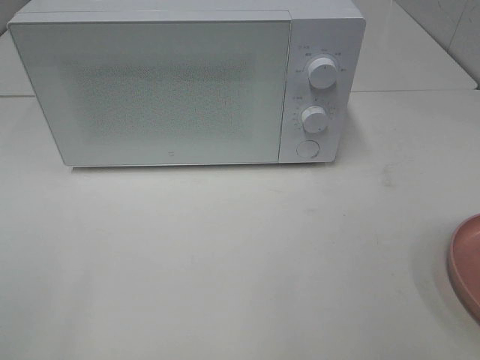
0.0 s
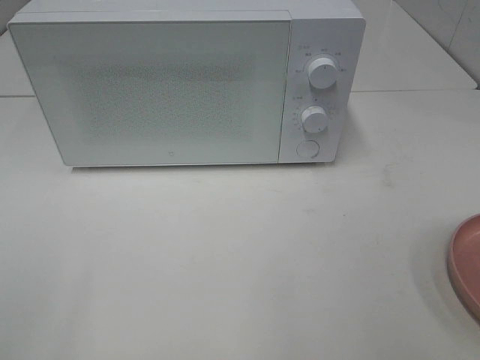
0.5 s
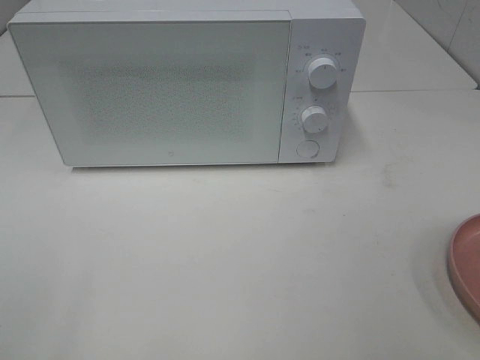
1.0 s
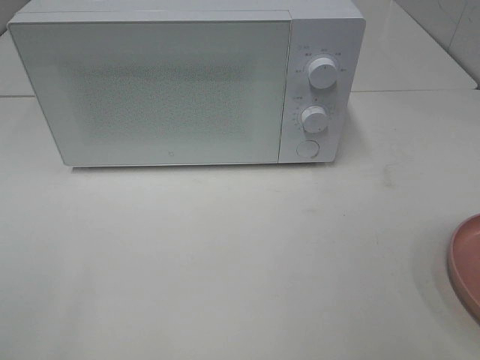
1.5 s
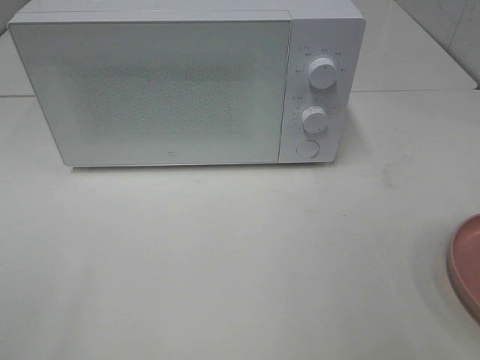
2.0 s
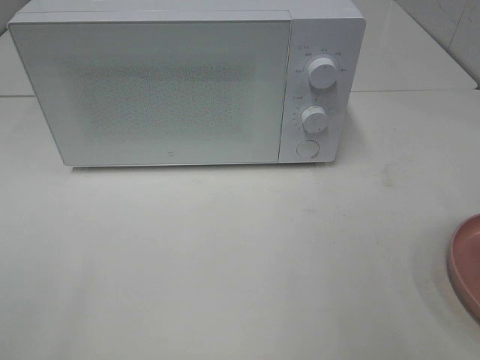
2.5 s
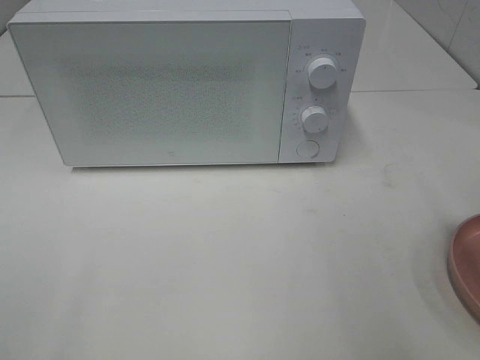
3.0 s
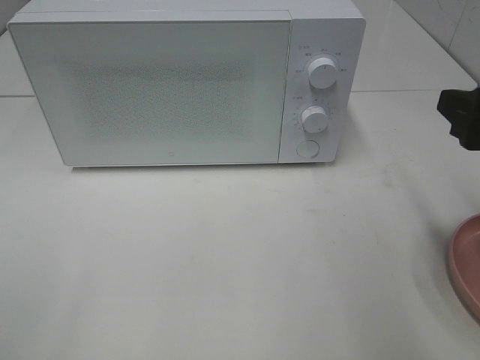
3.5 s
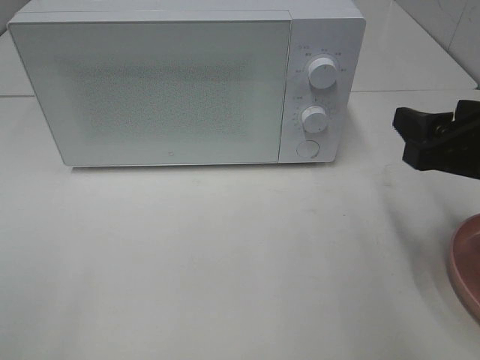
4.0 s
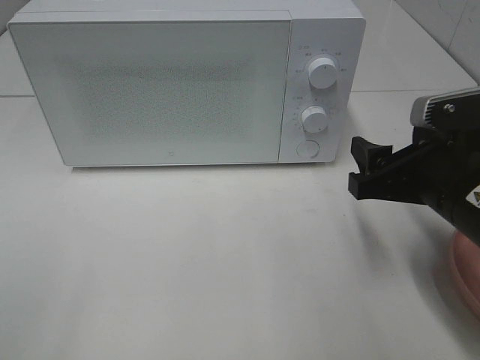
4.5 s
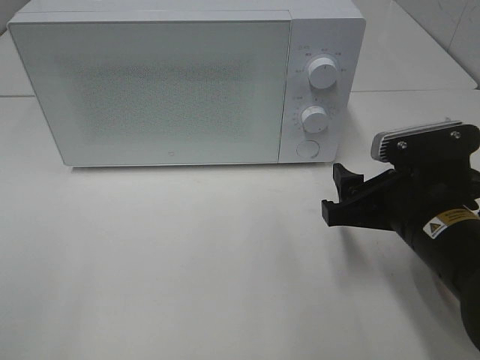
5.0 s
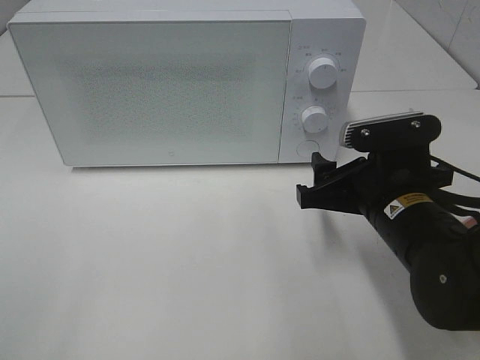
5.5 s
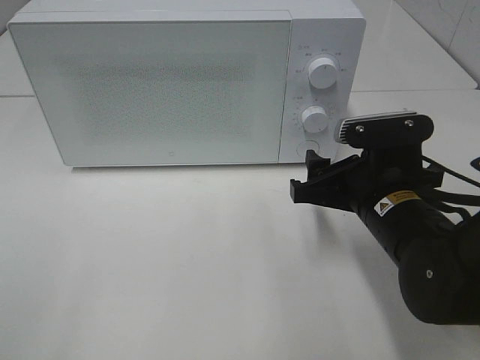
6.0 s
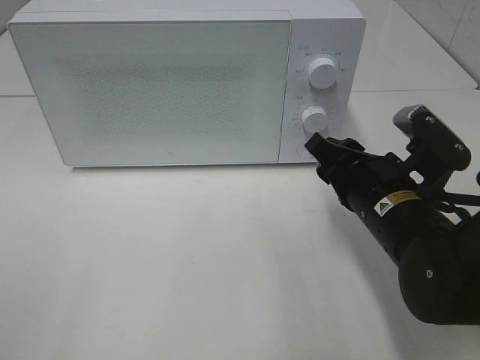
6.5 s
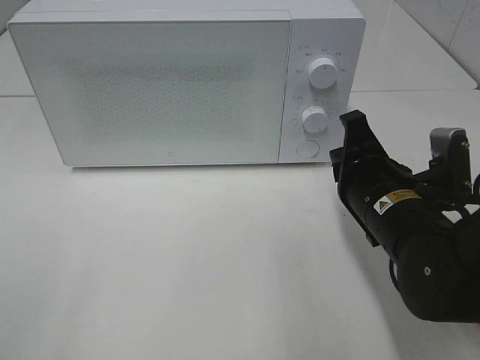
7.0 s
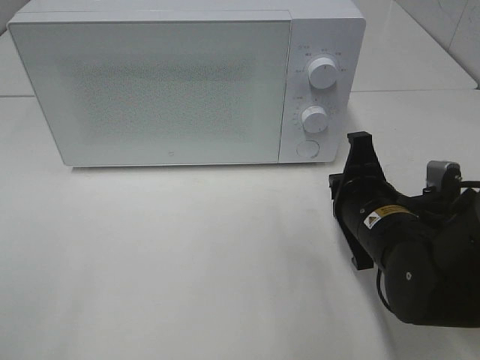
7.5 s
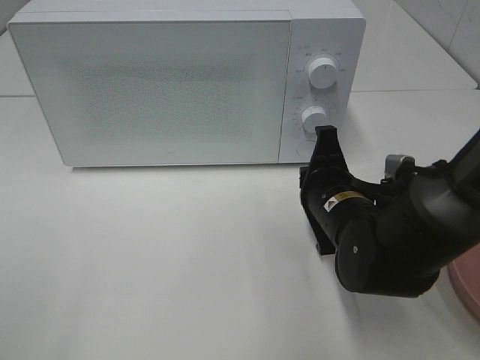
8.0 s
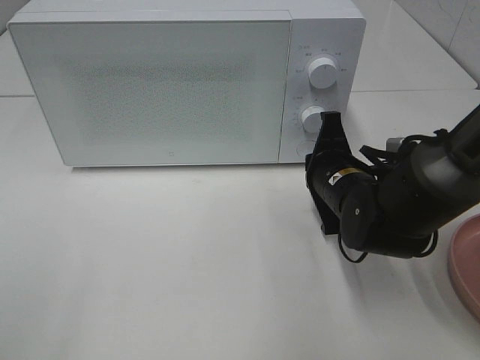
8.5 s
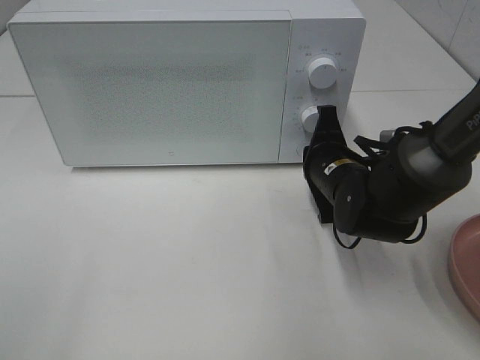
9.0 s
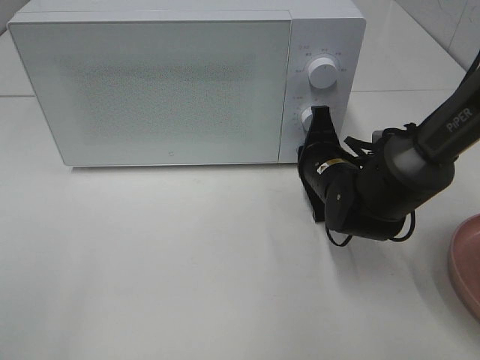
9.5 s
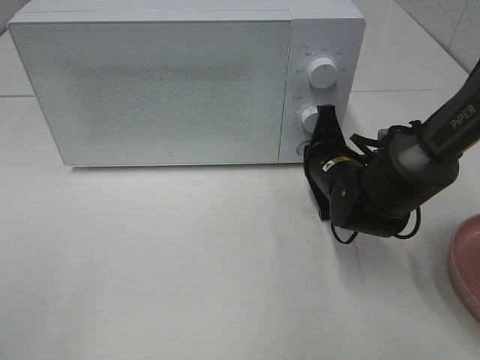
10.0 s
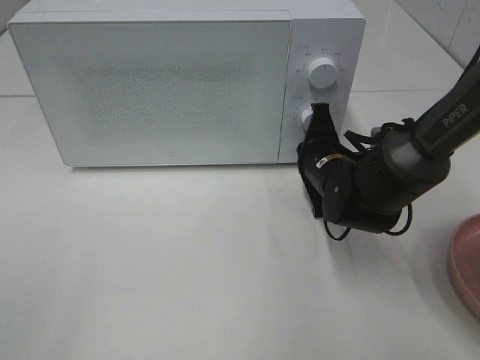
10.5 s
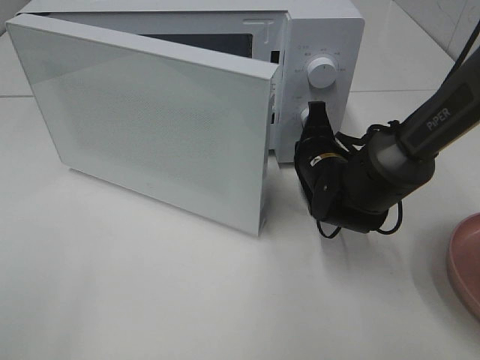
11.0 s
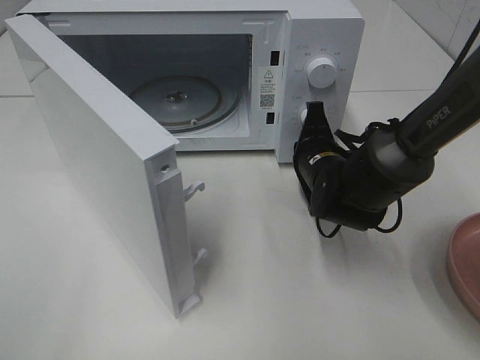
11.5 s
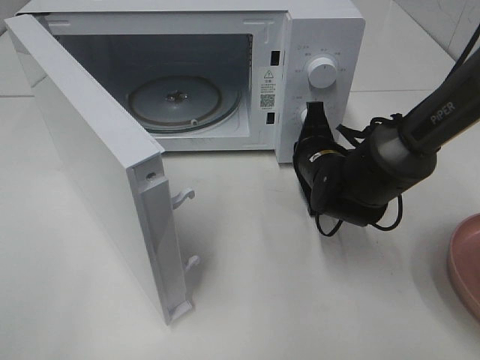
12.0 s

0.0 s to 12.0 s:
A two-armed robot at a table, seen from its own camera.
Task of the whole recording: Heat the burger.
2.0 to 4.0 s: The right gripper moves forward and downward, approximately 15 cm.
4.0 to 6.0 s: The right gripper moves to the left and downward, approximately 10 cm.
6.0 to 8.0 s: The right gripper changes place by about 5 cm, and closes its fingers.
8.0 to 10.0 s: The right gripper heads forward, covering roughly 5 cm.

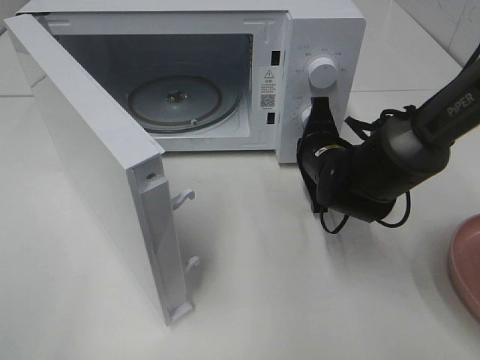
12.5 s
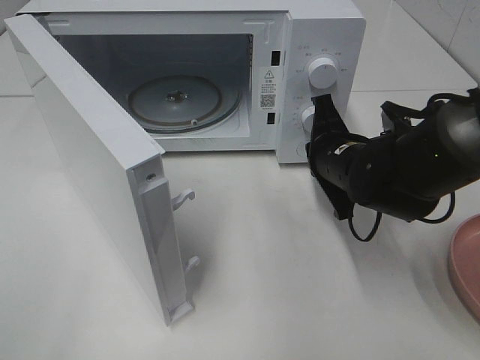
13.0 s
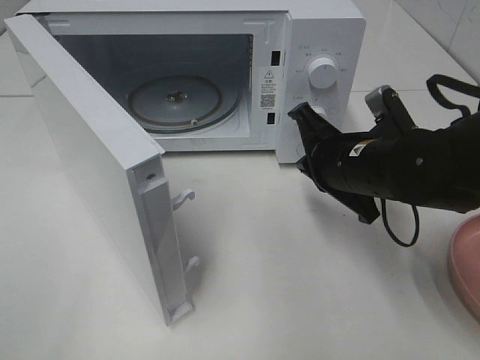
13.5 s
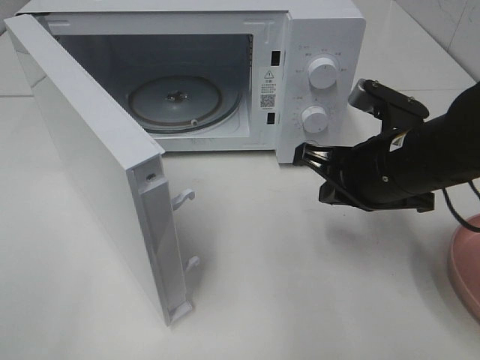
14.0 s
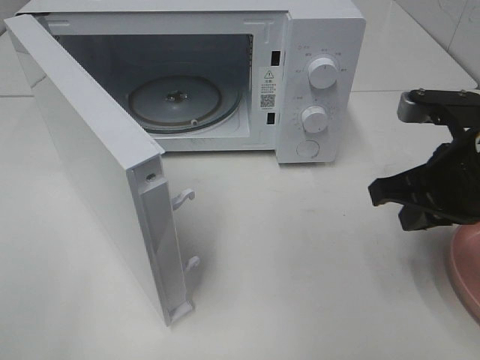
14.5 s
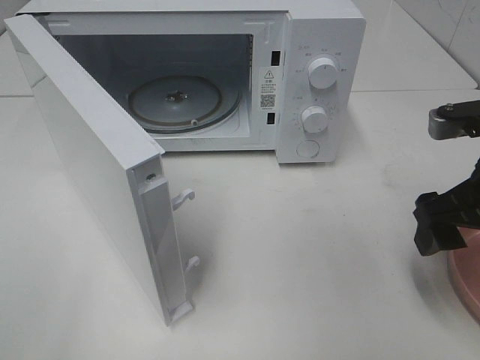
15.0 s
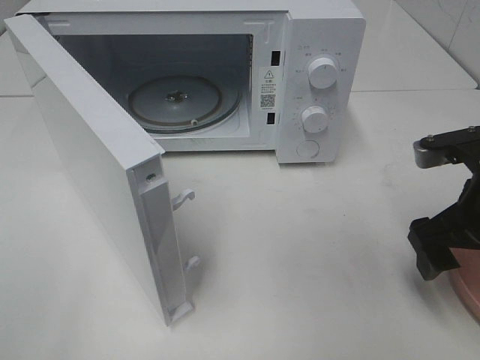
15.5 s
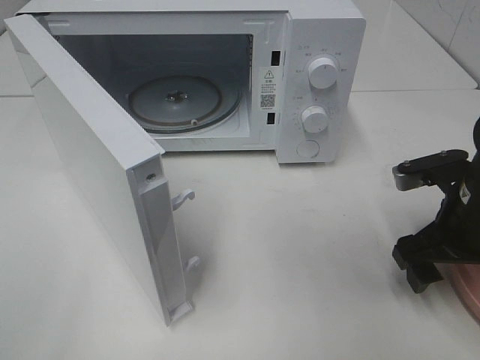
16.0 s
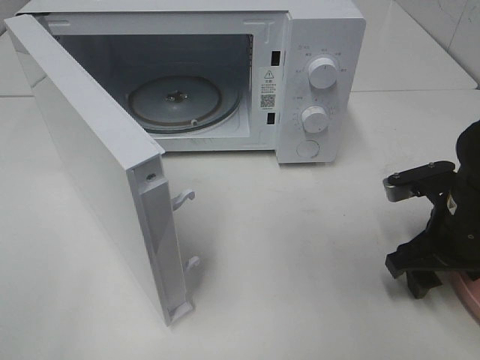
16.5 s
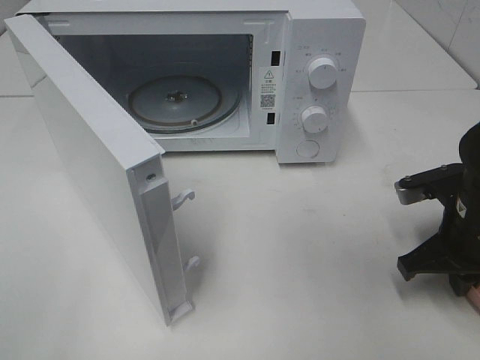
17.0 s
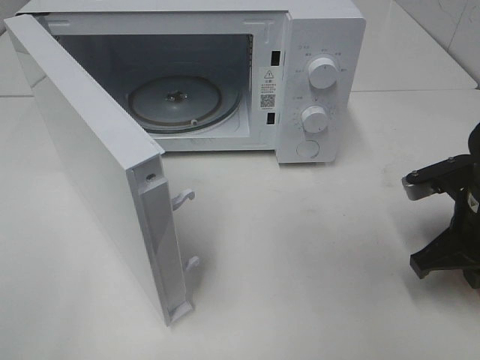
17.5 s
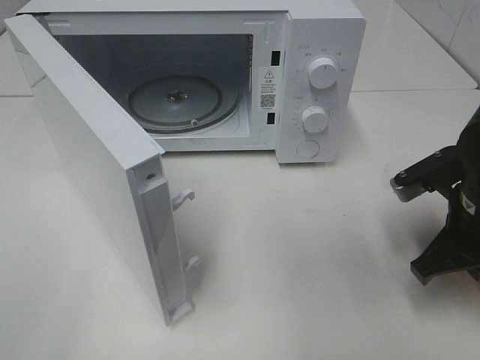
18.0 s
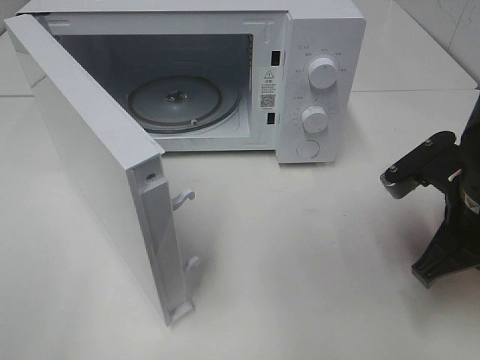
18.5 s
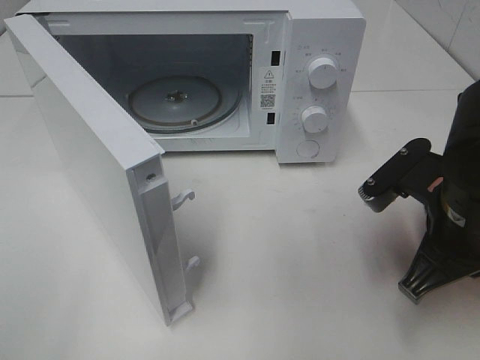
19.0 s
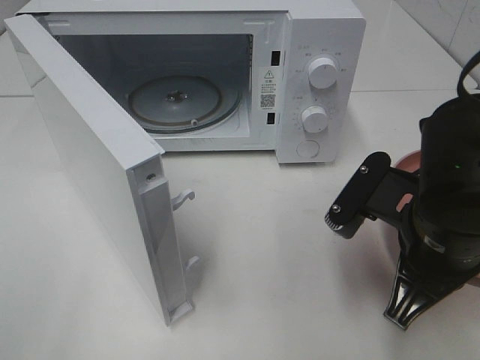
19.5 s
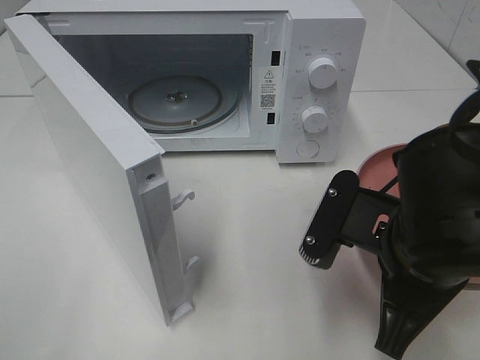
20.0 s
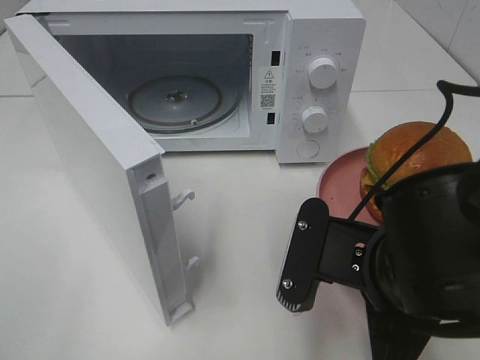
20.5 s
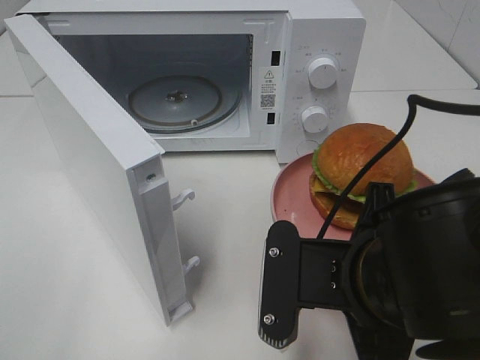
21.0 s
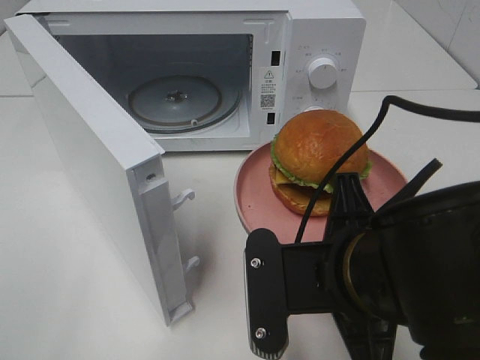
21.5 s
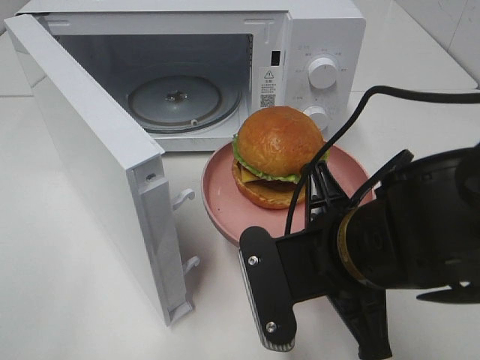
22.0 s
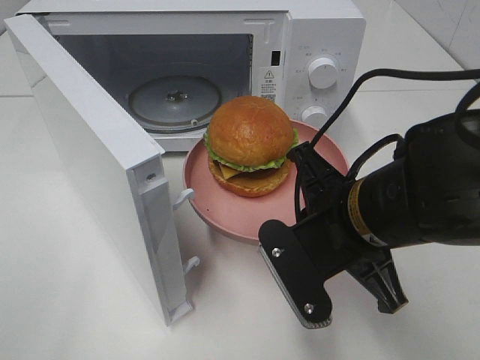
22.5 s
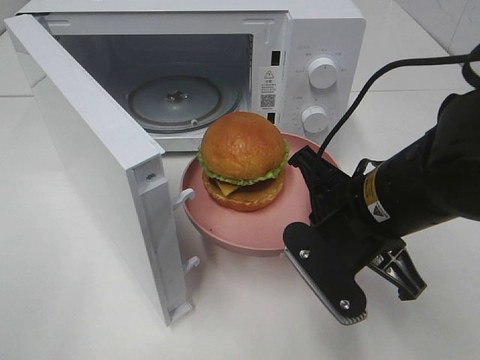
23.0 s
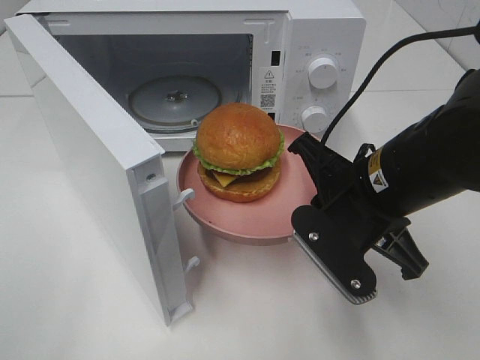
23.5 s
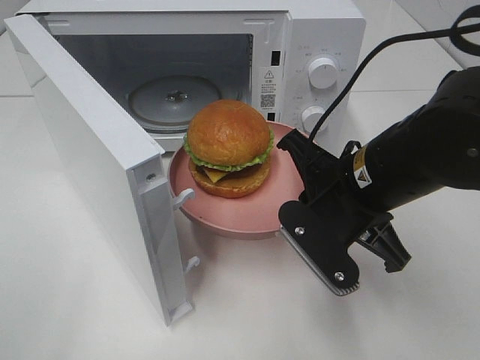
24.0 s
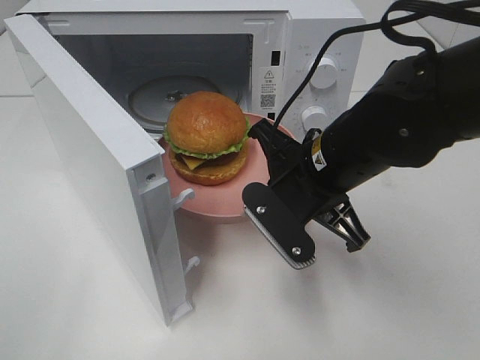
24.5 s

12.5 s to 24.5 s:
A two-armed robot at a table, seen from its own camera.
Task of the whole recording: Heat the burger.
Step, 13.0 to 17.0 s: Right hand: grab the plate with the hamburger.
12.5 to 14.5 s: The right gripper moves backward, upward and to the right, approximately 20 cm.
14.5 to 16.5 s: The right gripper travels downward by roughly 10 cm, and opens its fingers.
16.5 to 18.5 s: The right gripper heads upward, covering approximately 5 cm, and closes.
18.5 to 20.5 s: The right gripper travels to the left and backward by about 15 cm.
20.5 to 22.5 s: The right gripper travels forward by roughly 5 cm.
22.5 to 24.5 s: The right gripper travels forward by about 5 cm.

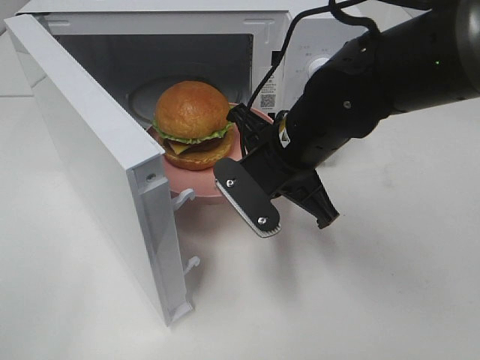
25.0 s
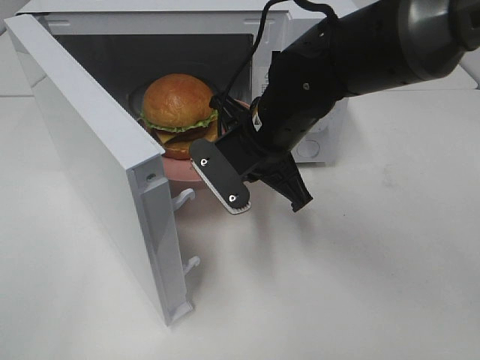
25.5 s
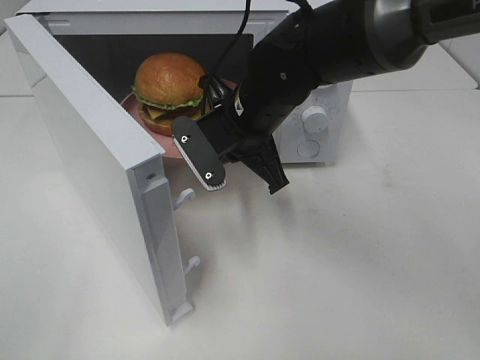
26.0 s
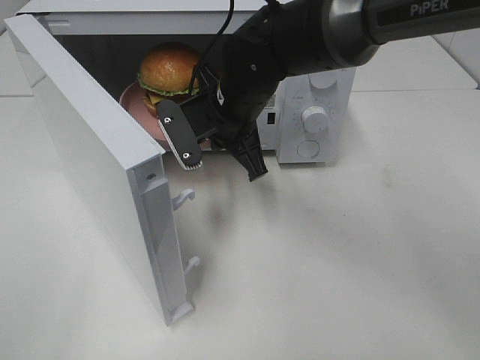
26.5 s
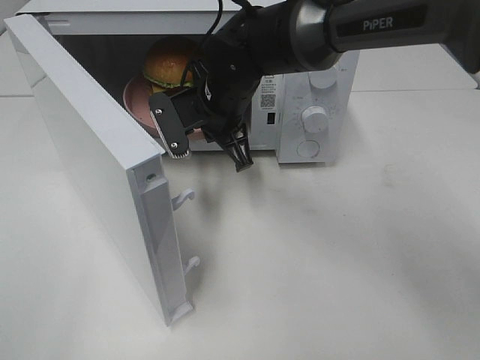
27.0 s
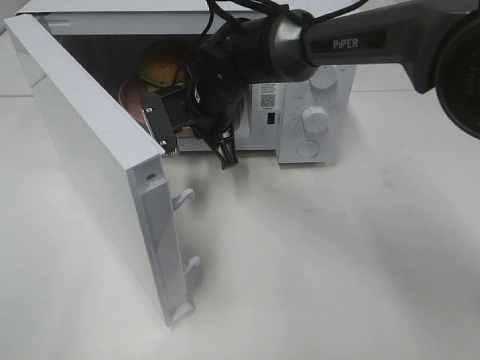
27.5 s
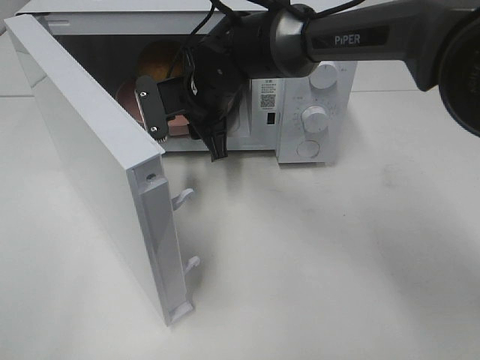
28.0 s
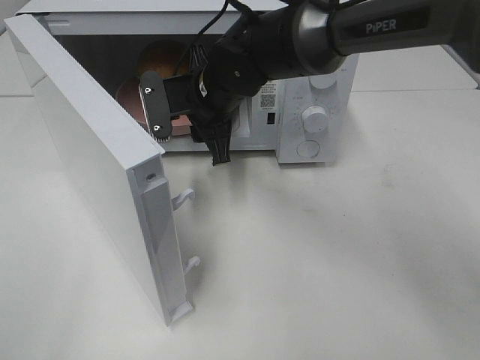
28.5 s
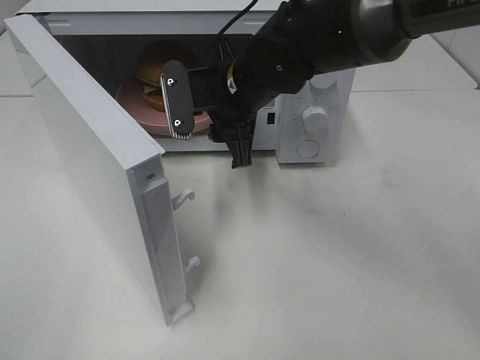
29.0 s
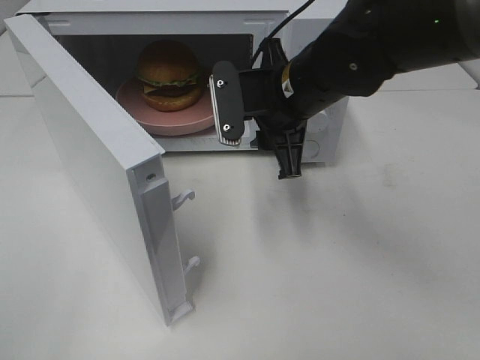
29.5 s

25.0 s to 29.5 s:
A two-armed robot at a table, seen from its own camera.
Task of the whole recording: Heat the burger.
Step, 25.0 to 28.0 s: Right hand: place the plate in the microwave.
25.0 to 27.0 s: The right gripper moves forward and to the left, about 15 cm.
27.0 to 29.5 s: The right gripper shifts approximately 10 cm to the right and backward, and opens.
